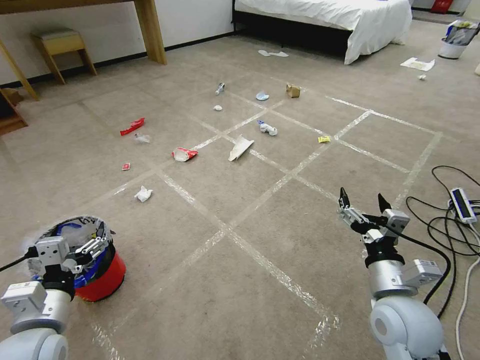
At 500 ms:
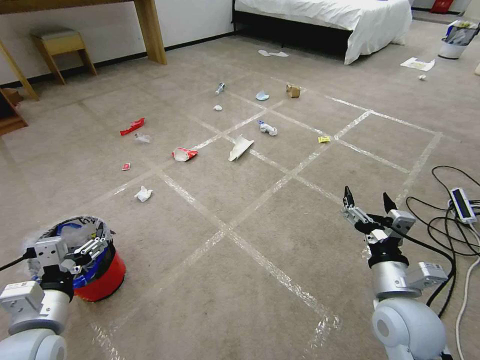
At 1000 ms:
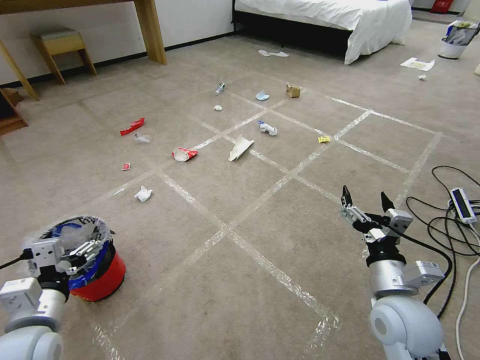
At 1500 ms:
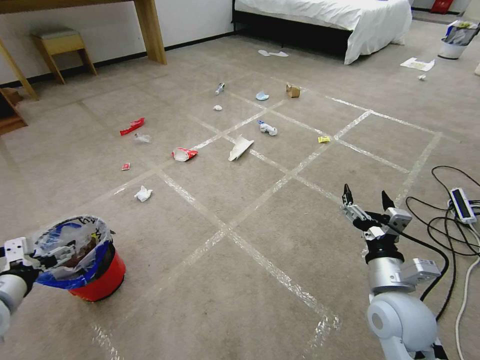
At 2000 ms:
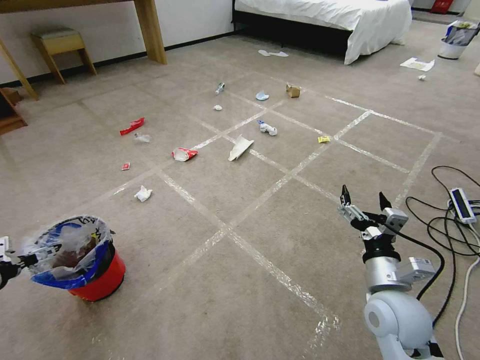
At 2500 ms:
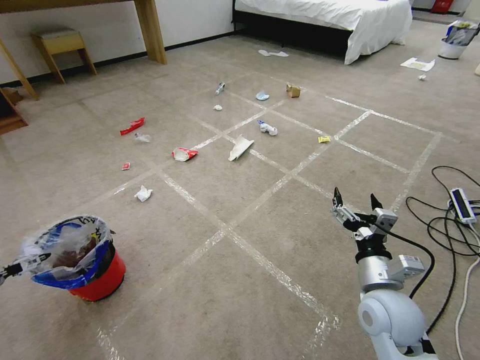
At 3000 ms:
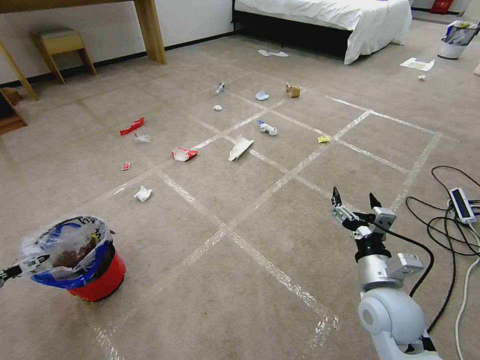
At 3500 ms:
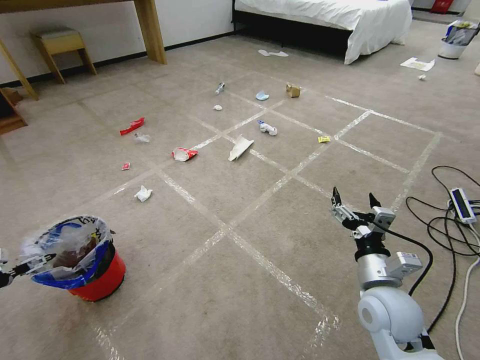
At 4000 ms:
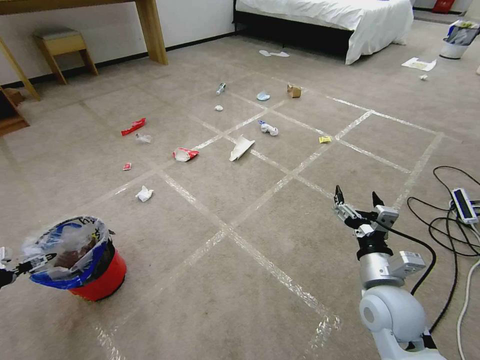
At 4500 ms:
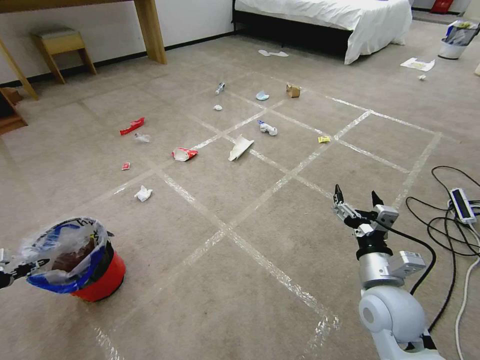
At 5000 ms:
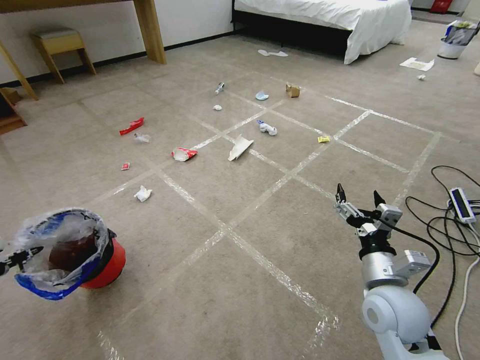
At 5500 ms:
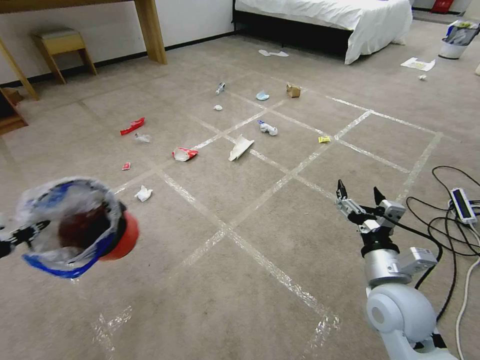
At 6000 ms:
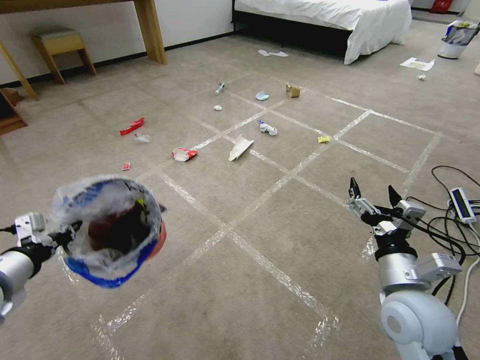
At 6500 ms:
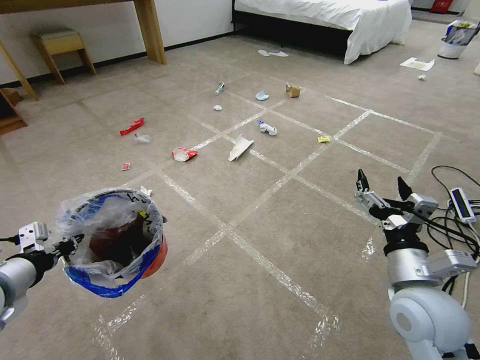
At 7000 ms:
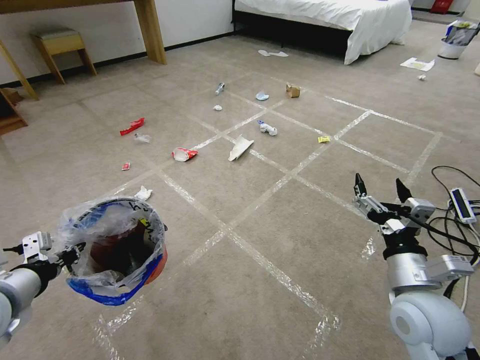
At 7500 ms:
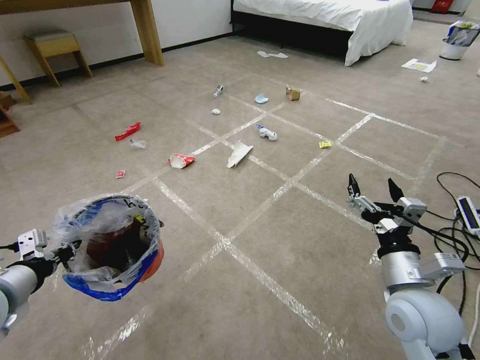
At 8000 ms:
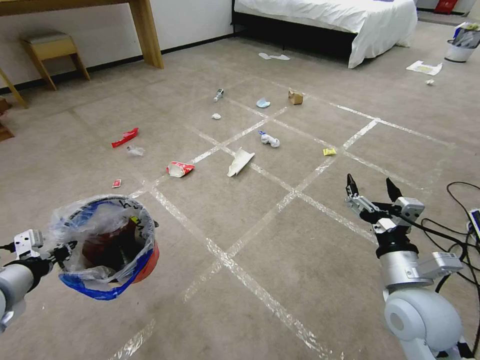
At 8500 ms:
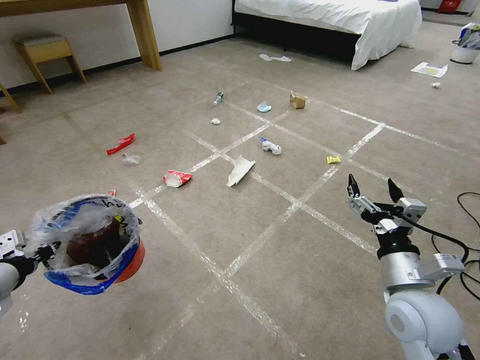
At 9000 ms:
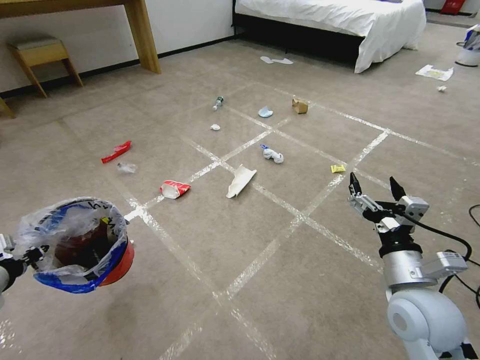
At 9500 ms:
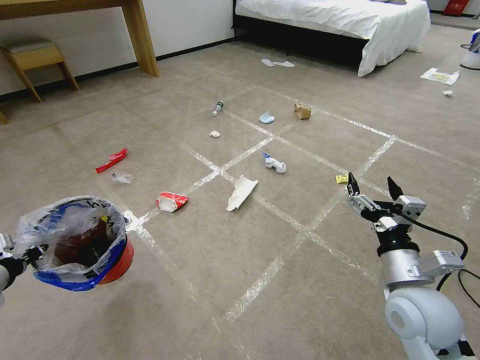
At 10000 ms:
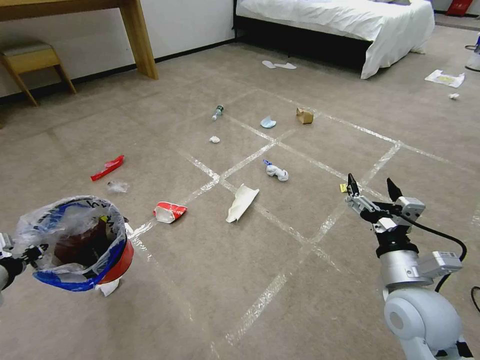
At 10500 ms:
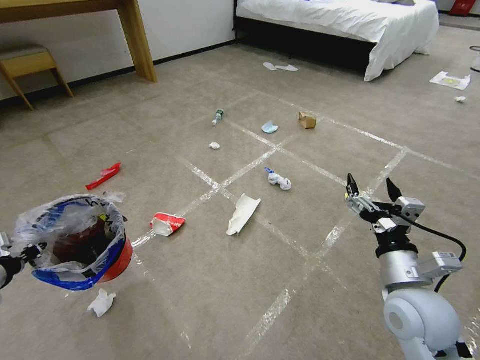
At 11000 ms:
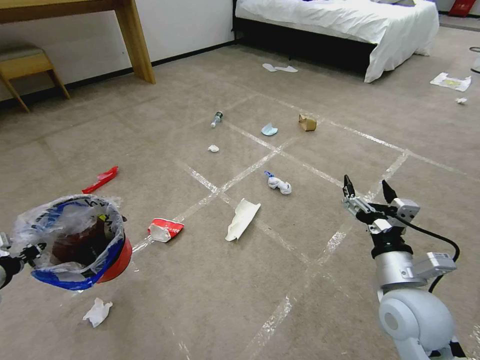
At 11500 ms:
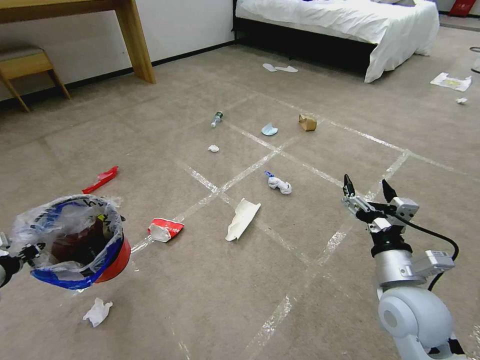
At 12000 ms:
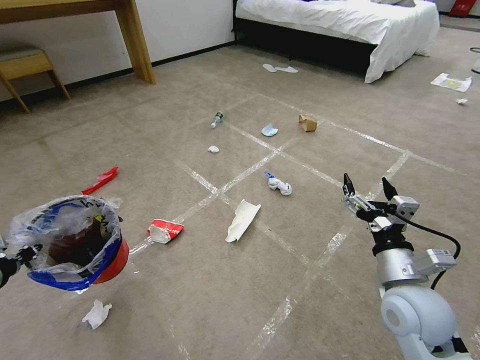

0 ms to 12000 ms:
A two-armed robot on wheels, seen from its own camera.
Task of the whole recording: Pick up the trash bin and place the garbage on the floor into it.
2000 ms to 4000 ms: The left gripper goes some 10 cm to the left and downward.
4000 ms to 6000 ms: The left gripper is displaced to the right and upward by about 25 cm, and closes up.
8000 ms to 10000 ms: The left gripper travels to the left by about 5 cm.
10000 ms to 12000 ms: The two grippers keep their place.

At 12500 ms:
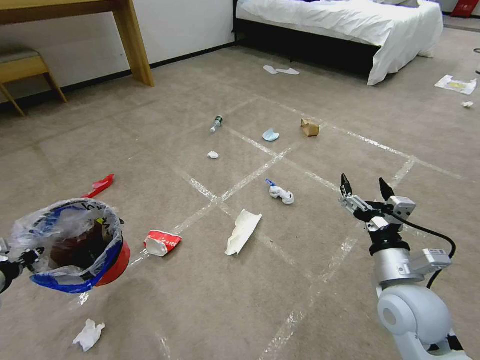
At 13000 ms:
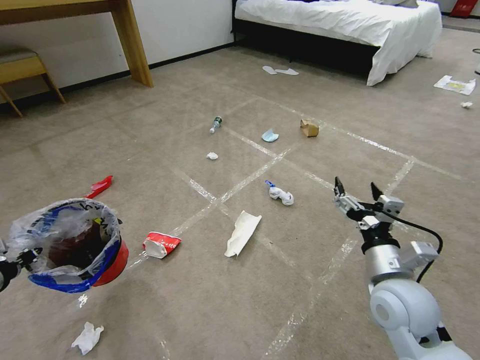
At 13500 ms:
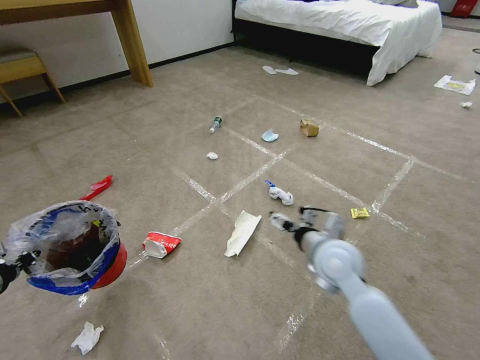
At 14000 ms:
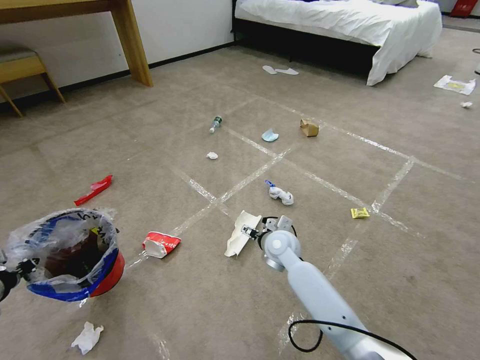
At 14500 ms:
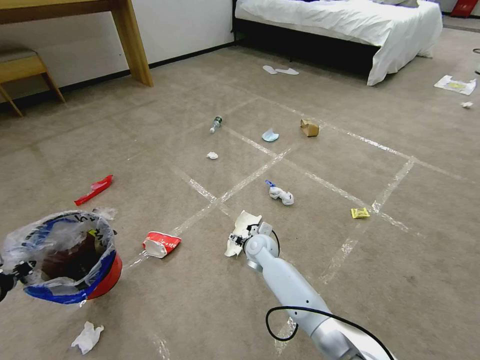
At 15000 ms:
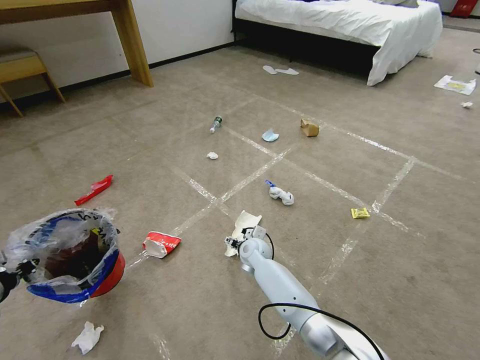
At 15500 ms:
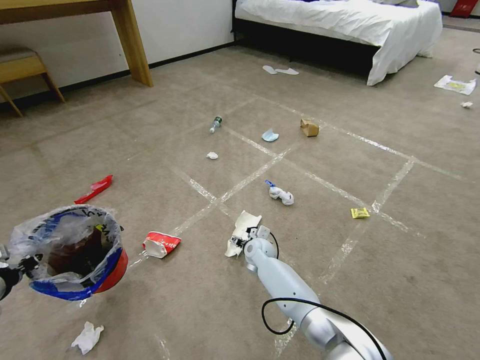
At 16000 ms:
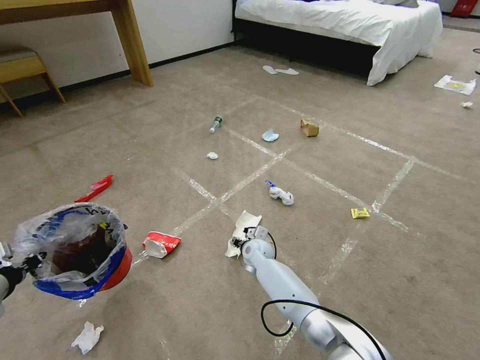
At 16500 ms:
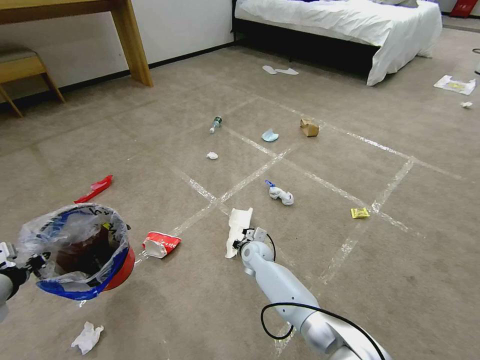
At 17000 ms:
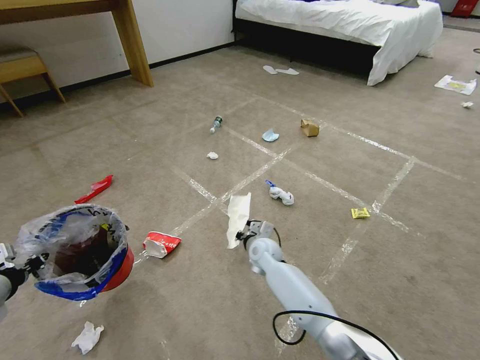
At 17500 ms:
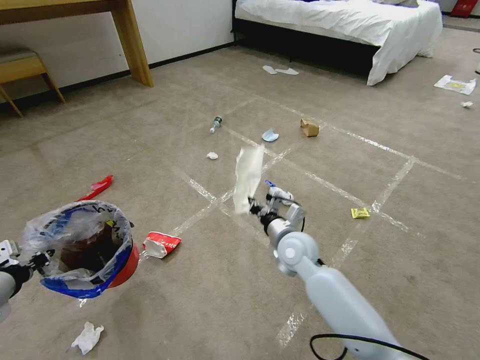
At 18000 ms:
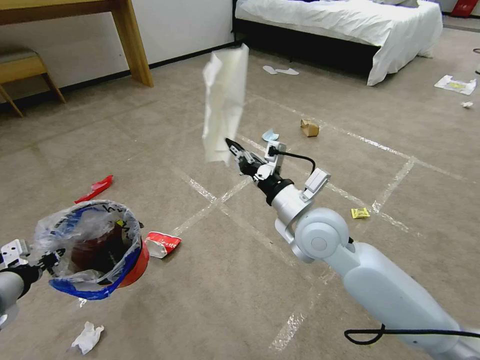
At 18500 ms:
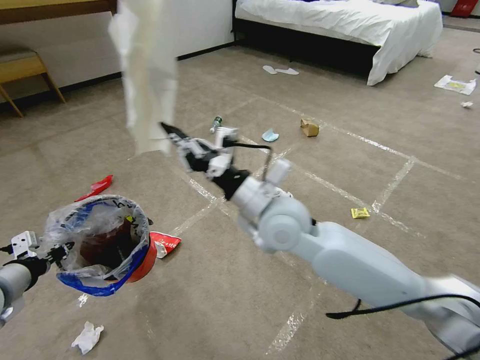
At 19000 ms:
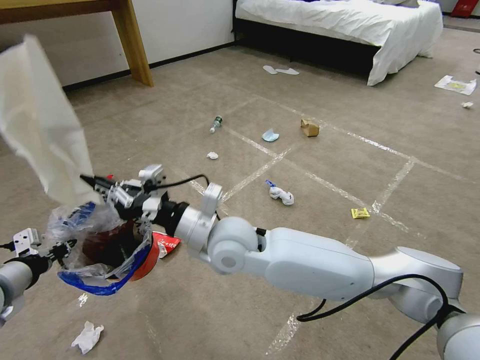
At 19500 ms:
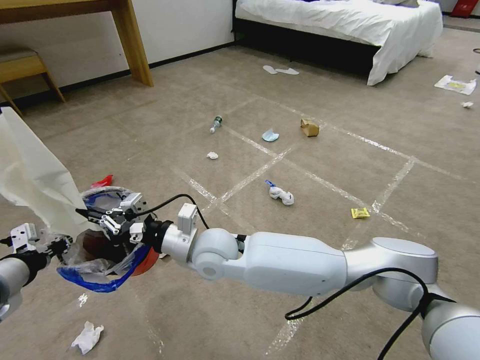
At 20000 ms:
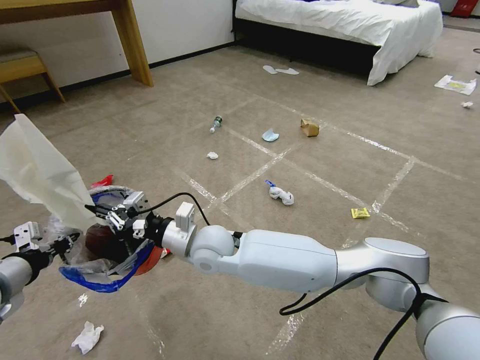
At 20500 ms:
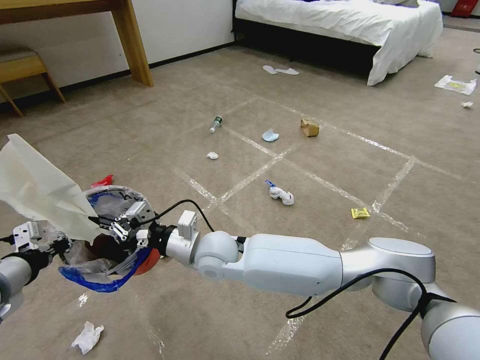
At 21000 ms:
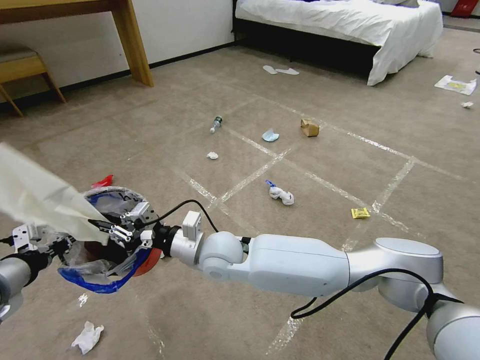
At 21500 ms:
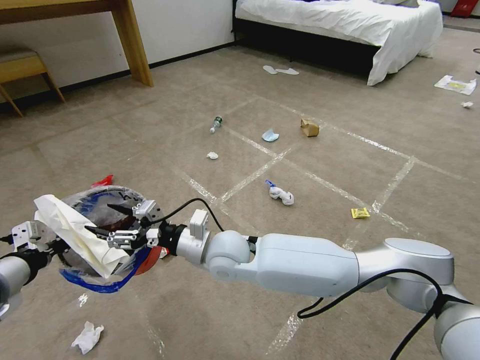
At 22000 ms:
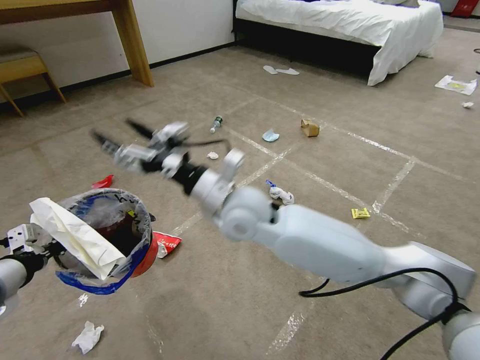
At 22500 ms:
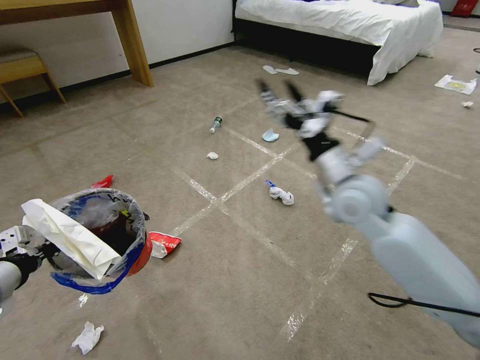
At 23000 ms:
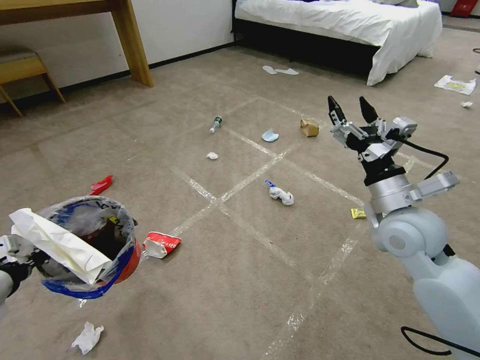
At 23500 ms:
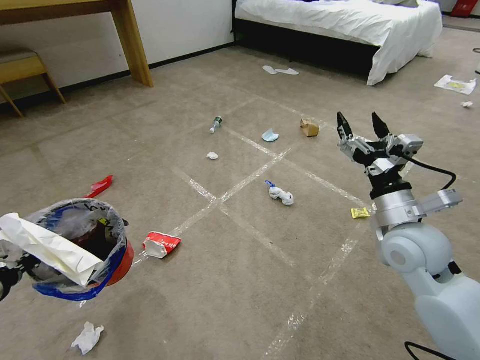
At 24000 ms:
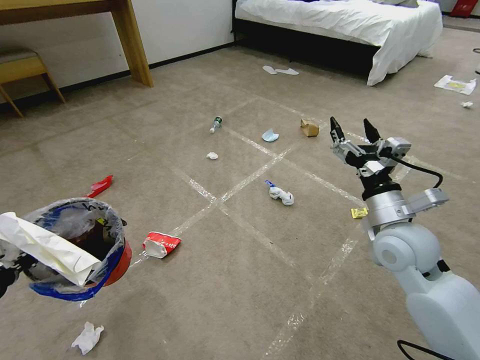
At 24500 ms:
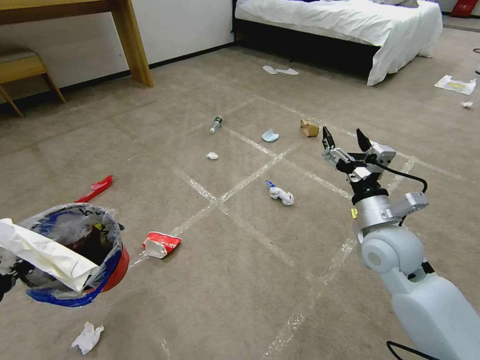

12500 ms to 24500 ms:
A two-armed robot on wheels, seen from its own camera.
Task of the whole recording: Pick up the trash bin and place the garbage on the floor into it.
12500 ms to 14500 ms: The right gripper goes about 35 cm forward, to the left and downward.
14500 ms to 16500 ms: The right gripper shifts by roughly 5 cm, and closes its fingers.
16500 ms to 18500 ms: The right gripper moves upward, some 30 cm.
18500 ms to 20500 ms: The right gripper goes some 15 cm to the left and downward.
20500 ms to 22500 ms: The right gripper shifts some 25 cm to the right and upward, and opens its fingers.
22500 ms to 24500 ms: The right gripper goes some 15 cm to the right, downward and backward.

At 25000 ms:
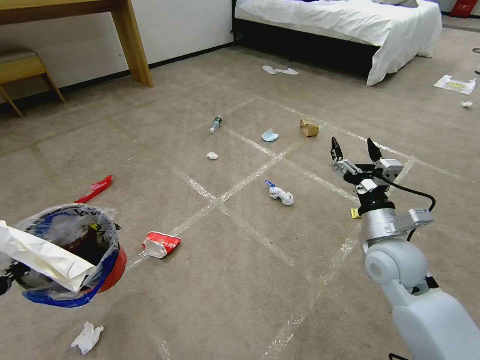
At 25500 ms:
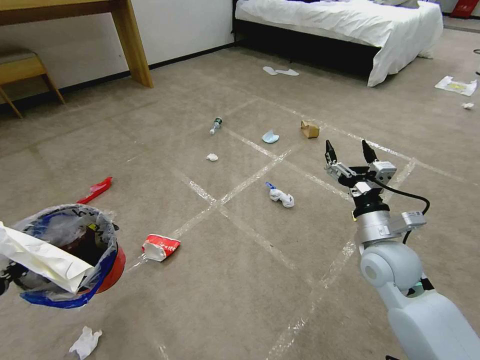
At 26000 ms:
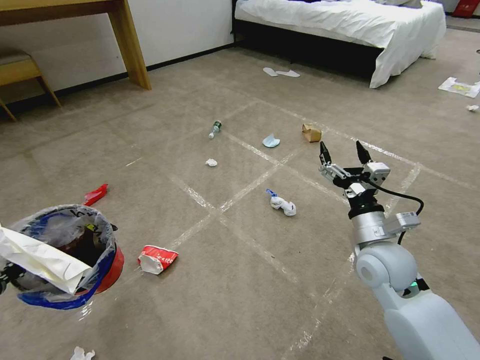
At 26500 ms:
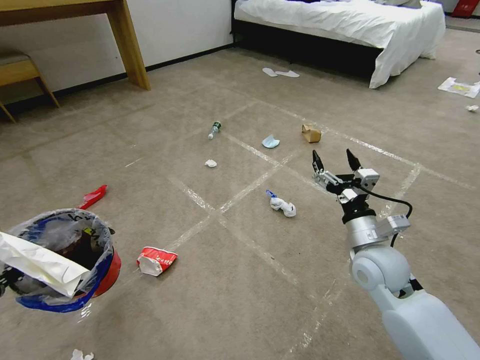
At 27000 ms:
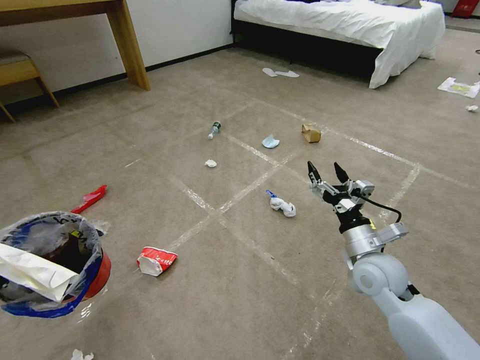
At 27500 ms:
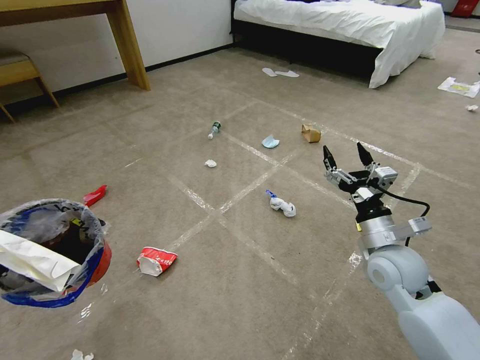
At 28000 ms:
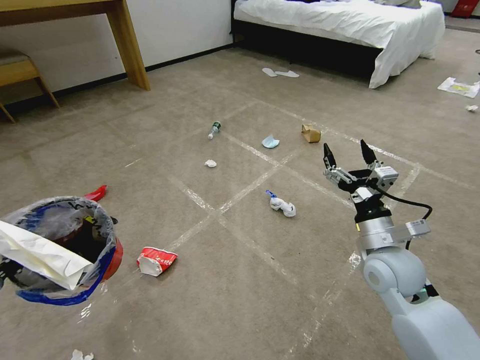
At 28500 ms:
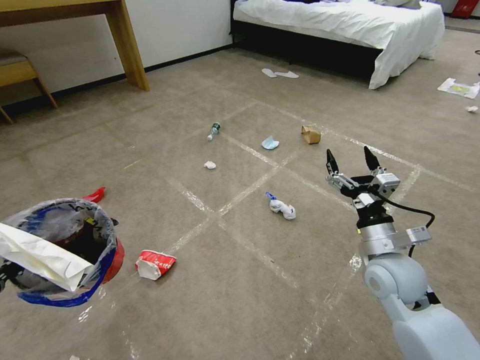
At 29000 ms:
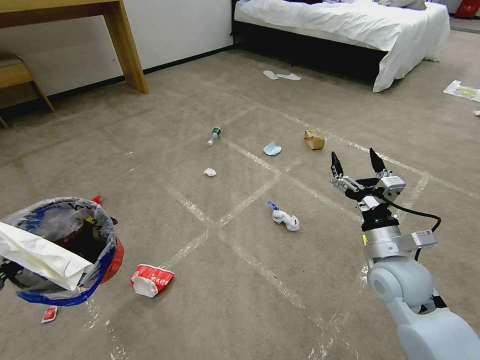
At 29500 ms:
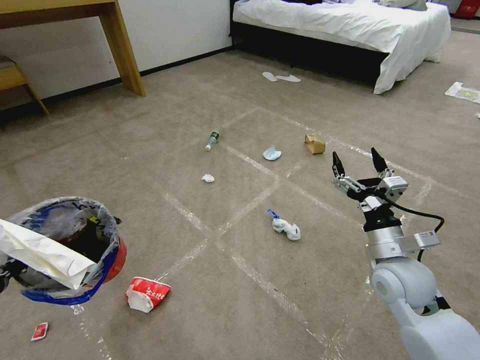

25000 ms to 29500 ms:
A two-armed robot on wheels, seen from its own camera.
Task of the whole recording: Pick up the trash bin and place the garbage on the floor into it.
25000 ms to 27000 ms: The grippers move only a little.
